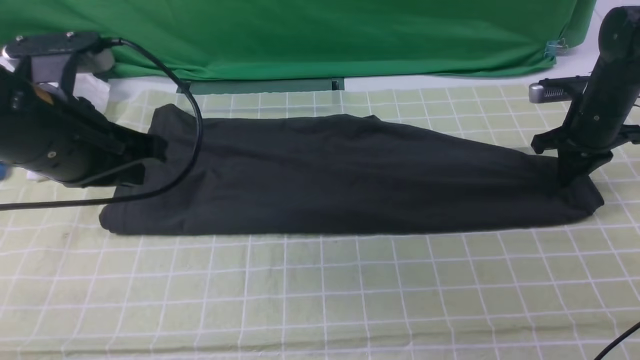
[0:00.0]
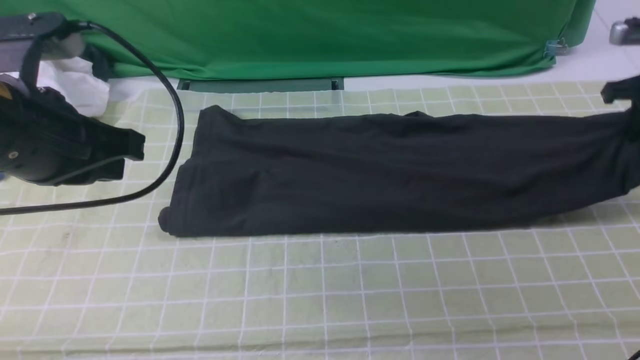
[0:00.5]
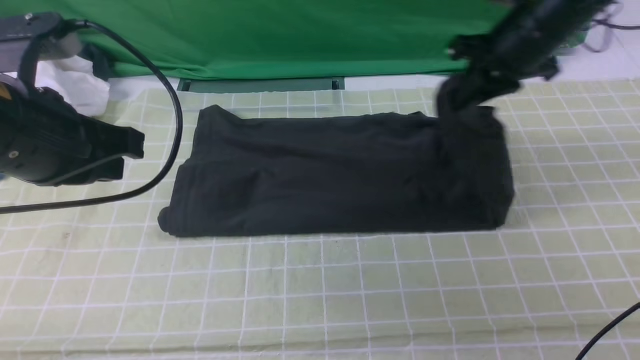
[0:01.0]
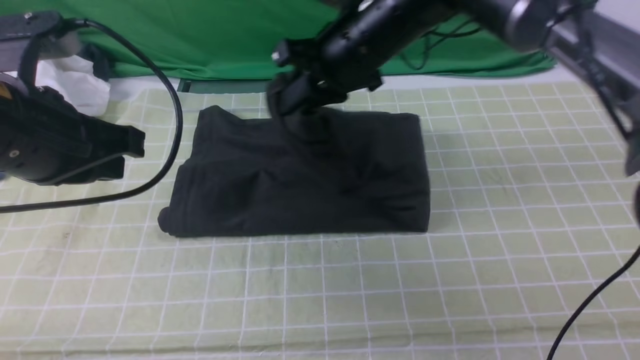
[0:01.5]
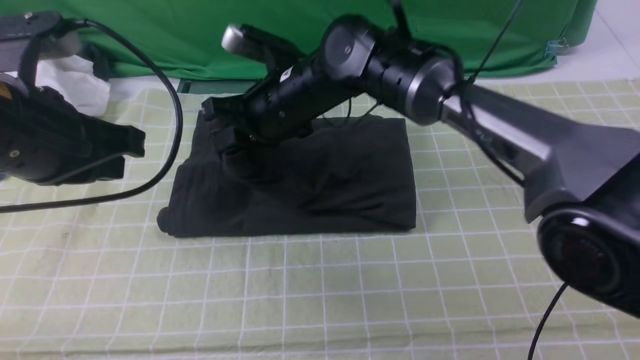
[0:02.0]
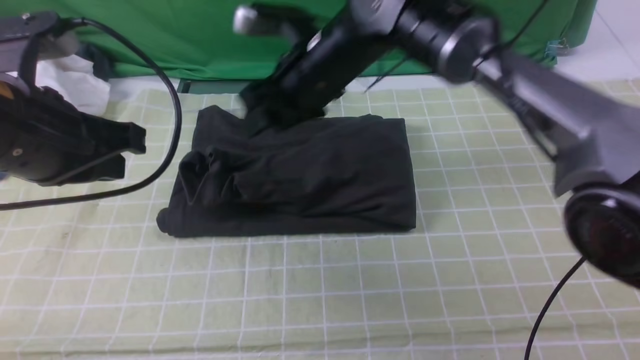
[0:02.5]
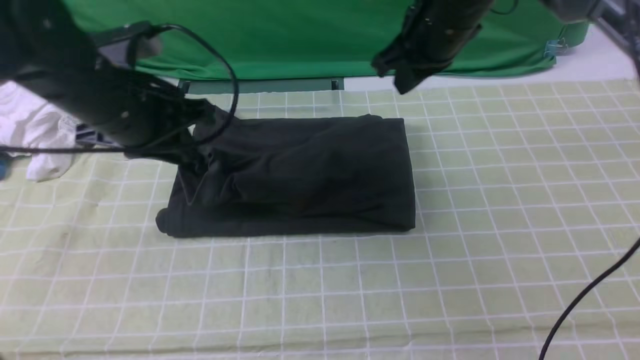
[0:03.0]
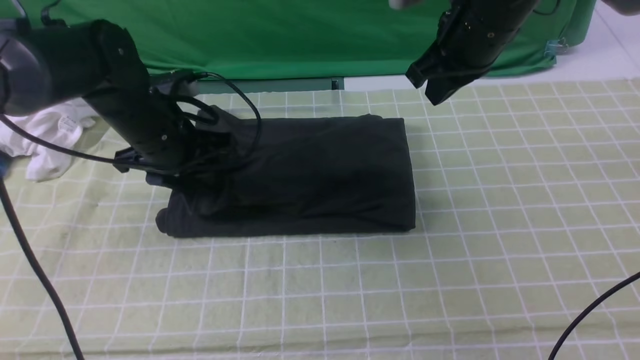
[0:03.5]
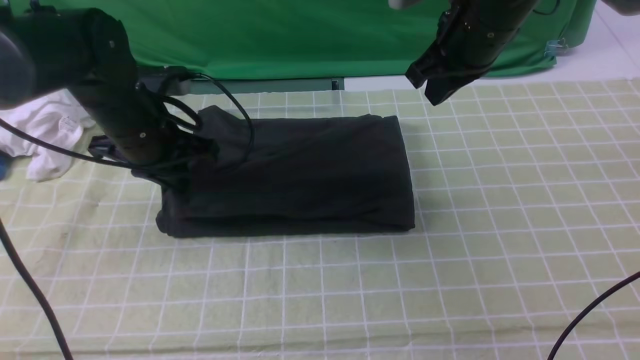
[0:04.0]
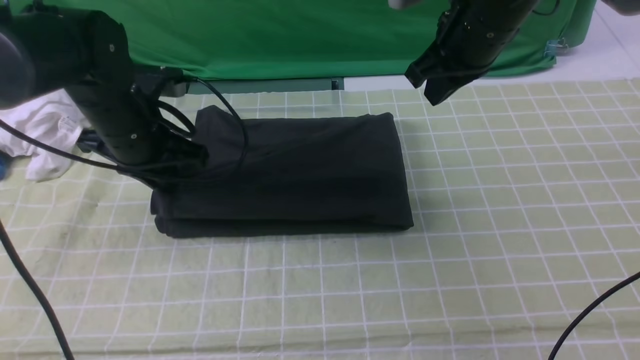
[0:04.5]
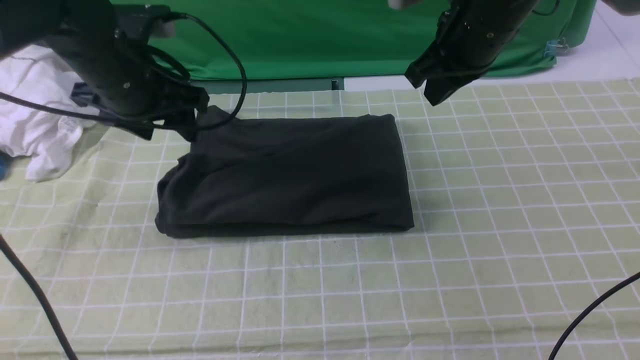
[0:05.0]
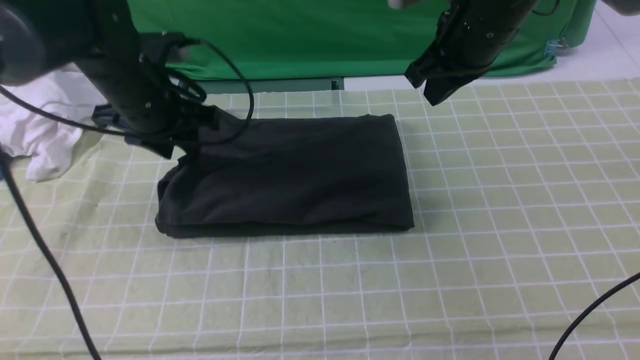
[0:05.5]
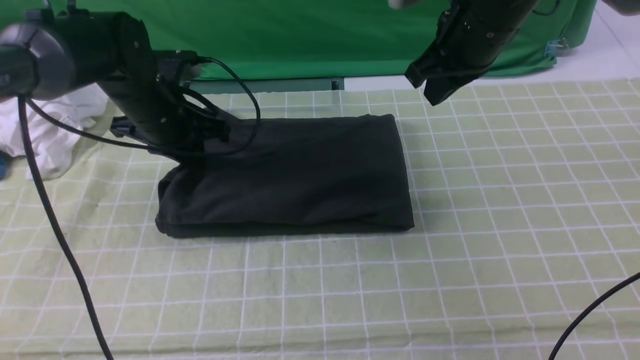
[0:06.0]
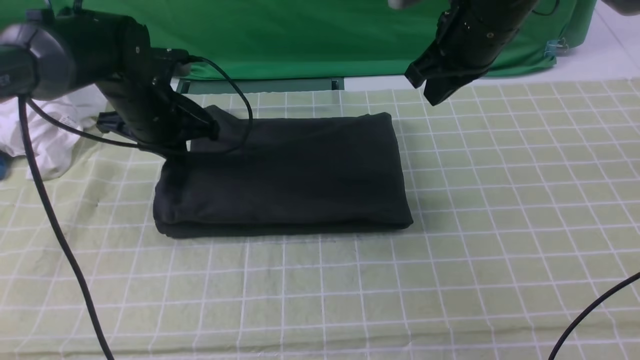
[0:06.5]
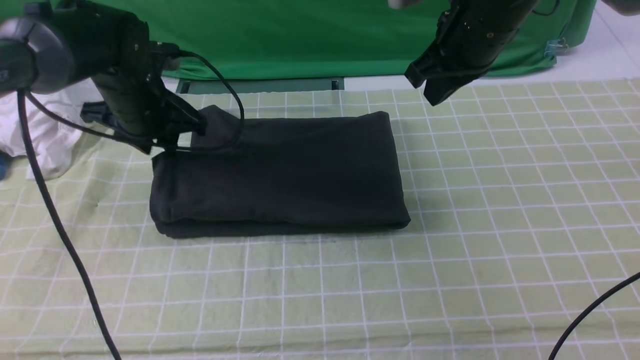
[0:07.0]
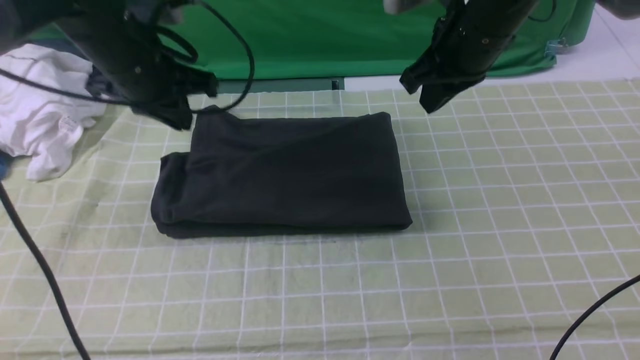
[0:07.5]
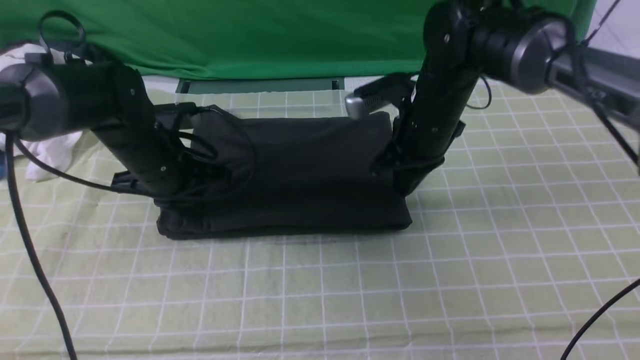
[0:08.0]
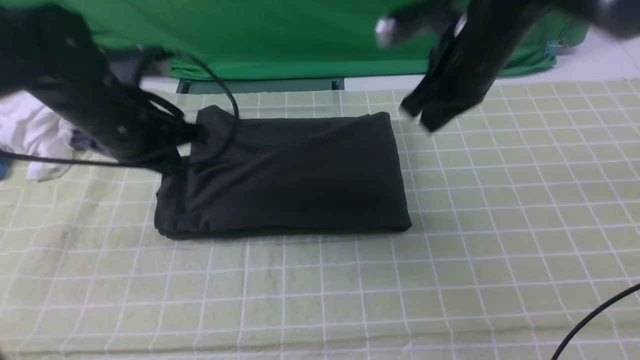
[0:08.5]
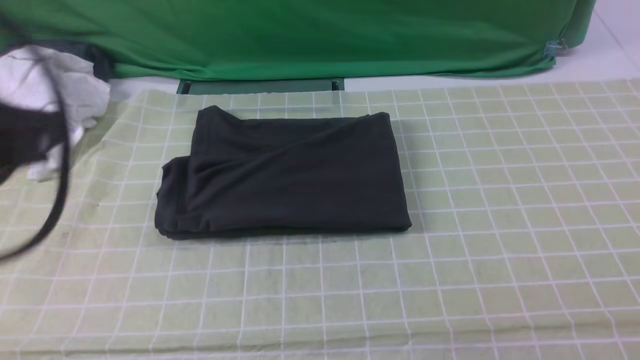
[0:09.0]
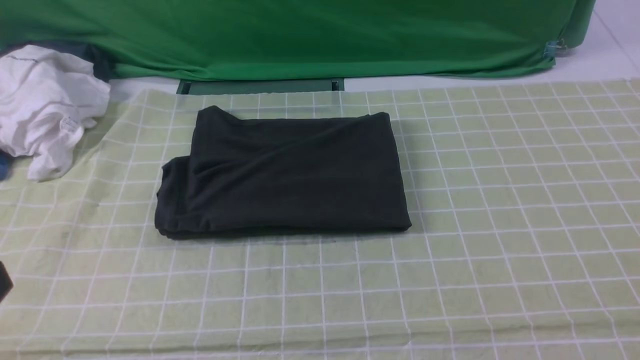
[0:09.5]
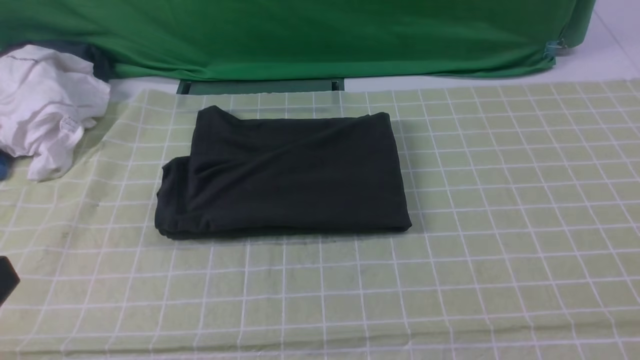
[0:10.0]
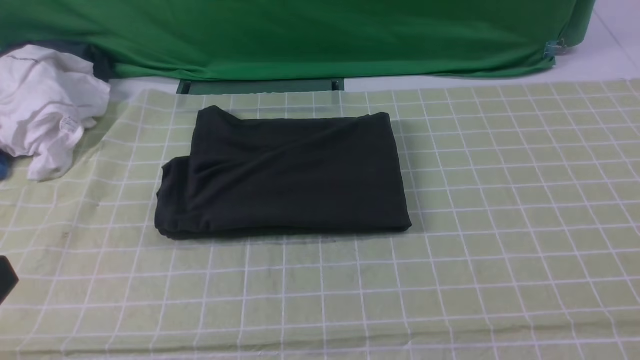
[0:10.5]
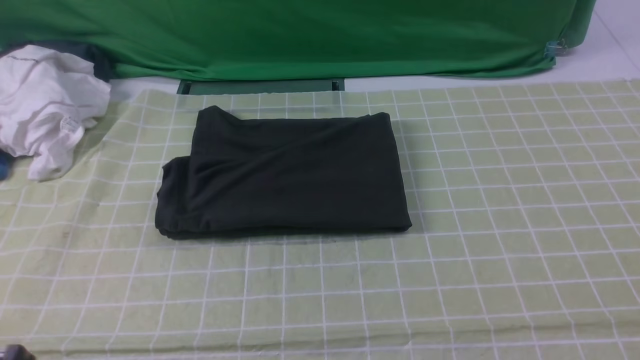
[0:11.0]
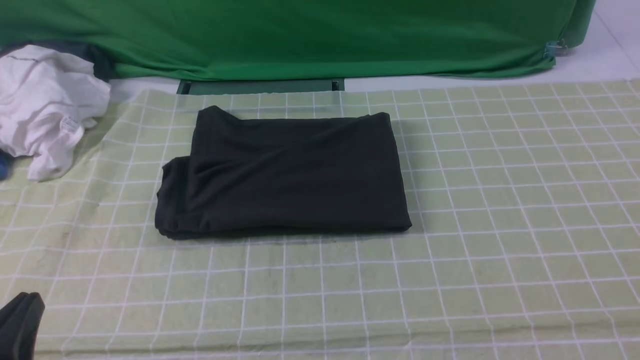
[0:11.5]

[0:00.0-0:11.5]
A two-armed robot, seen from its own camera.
Step, 0:00.5 to 0:02.5: use the right arm to drag the right edge of the fabric to the left and folds it over the left edge.
0:00.0 to 0:02.0: The right gripper goes roughly 40 cm to the left.
0:02.0 to 0:04.0: The left gripper is displaced forward and downward by roughly 20 cm, and opens and closes again. Meanwhile the right gripper heads to the right and upward, covering approximately 20 cm, and closes up.
0:04.0 to 0:06.0: The left gripper opens and closes again.
0:06.0 to 0:07.5: The left gripper travels upward by roughly 5 cm.
0:07.5 to 0:09.5: The right gripper heads backward and to the right, covering some 40 cm; the left gripper goes some 35 cm backward.
0:09.5 to 0:11.5: The left gripper travels downward by roughly 15 cm.

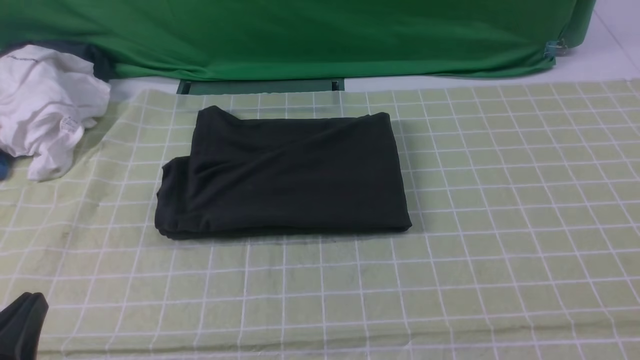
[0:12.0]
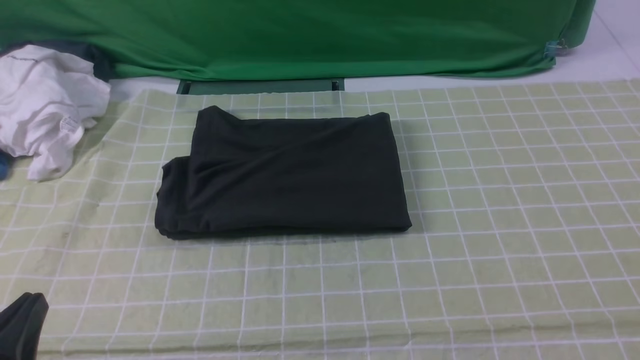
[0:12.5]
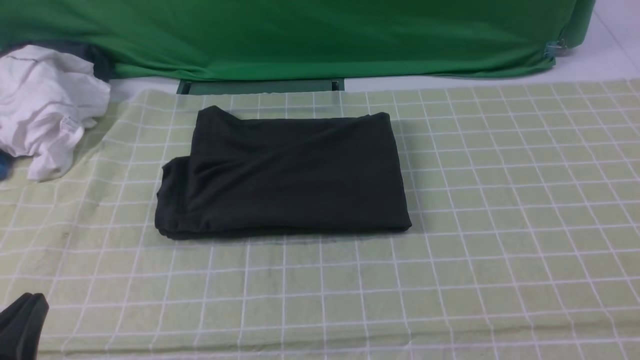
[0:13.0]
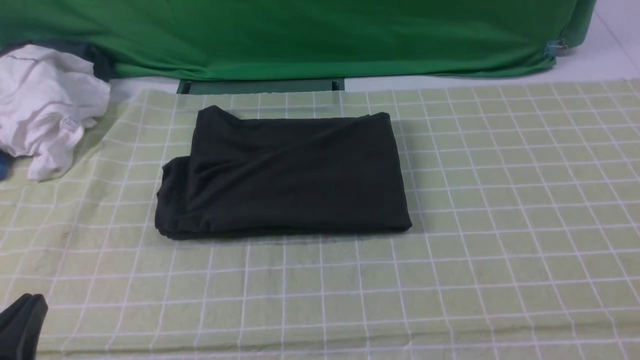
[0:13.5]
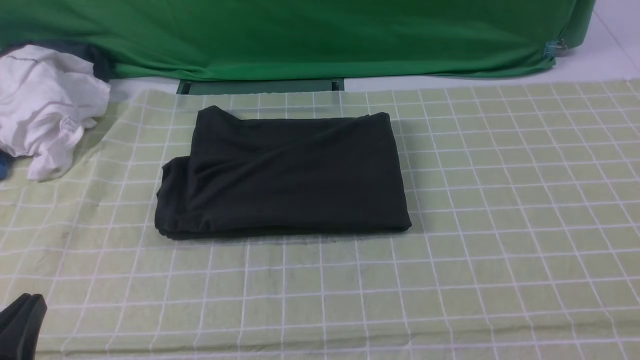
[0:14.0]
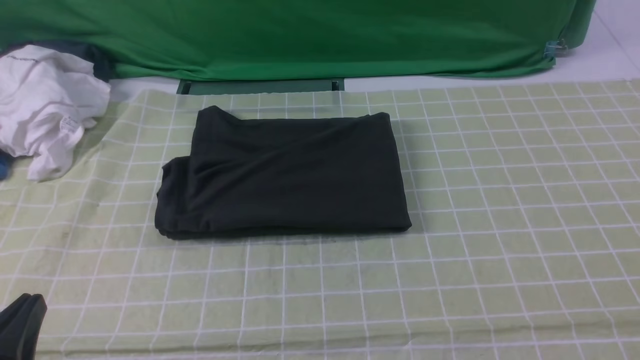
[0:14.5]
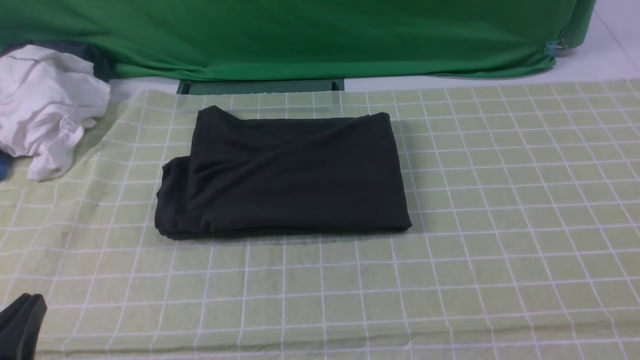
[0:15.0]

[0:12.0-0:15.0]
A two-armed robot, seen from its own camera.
0:13.5 to 0:15.0: The two grippers keep their place.
